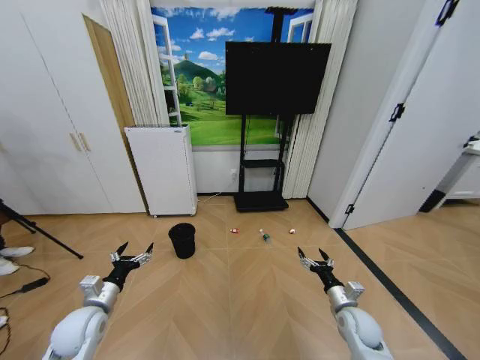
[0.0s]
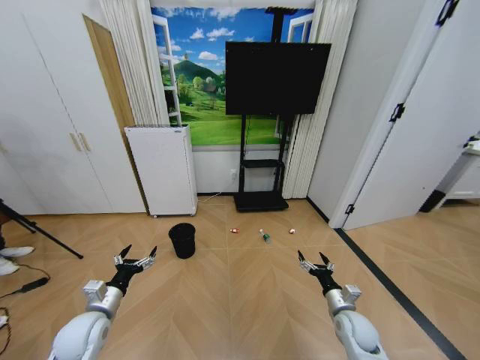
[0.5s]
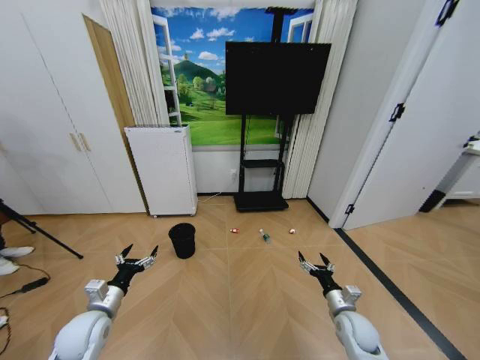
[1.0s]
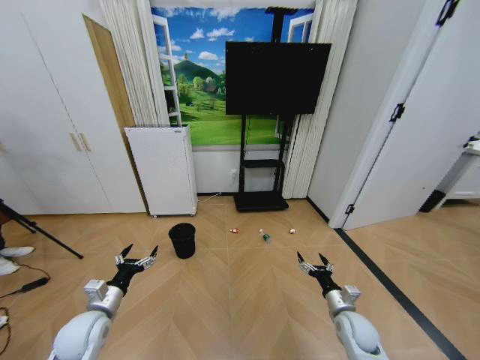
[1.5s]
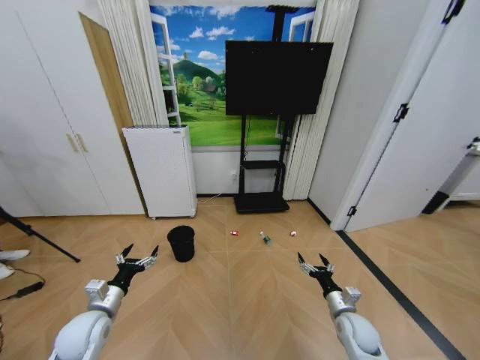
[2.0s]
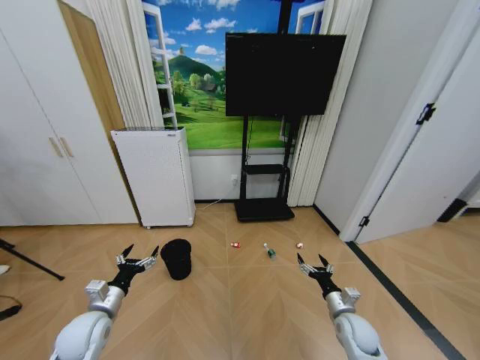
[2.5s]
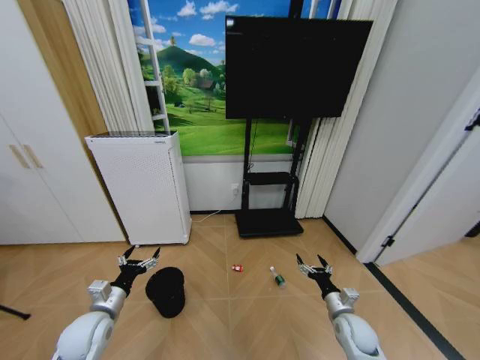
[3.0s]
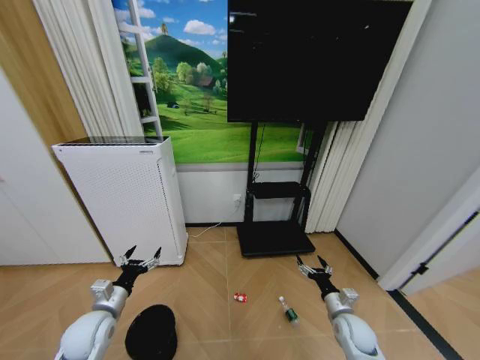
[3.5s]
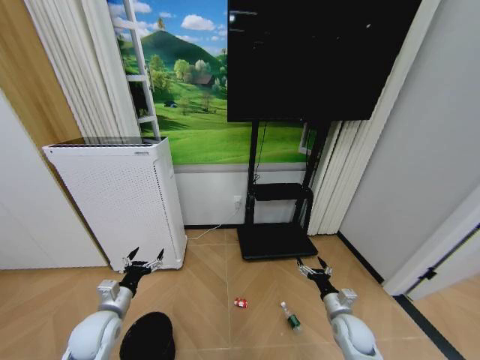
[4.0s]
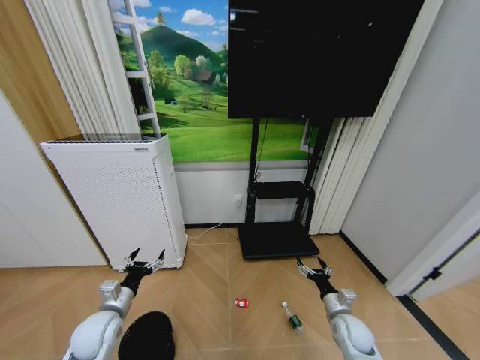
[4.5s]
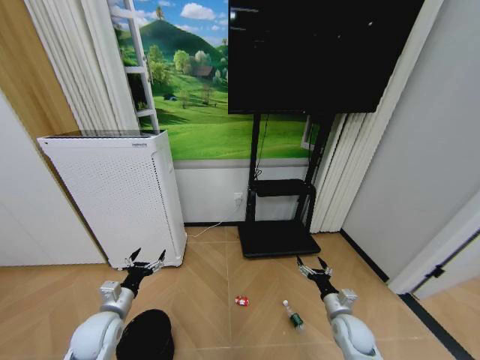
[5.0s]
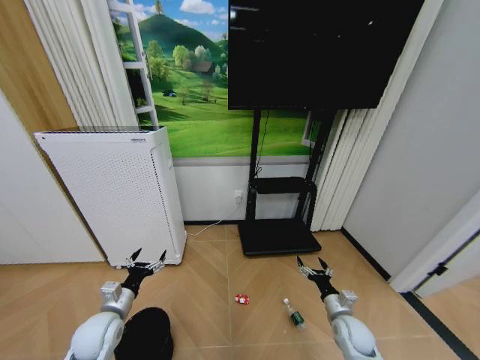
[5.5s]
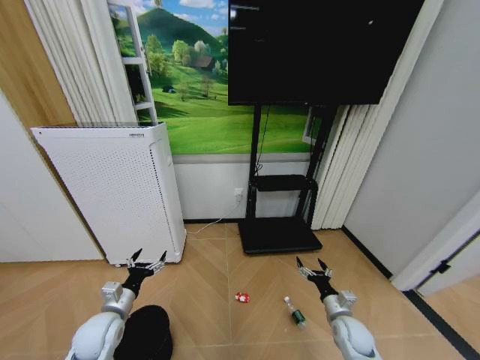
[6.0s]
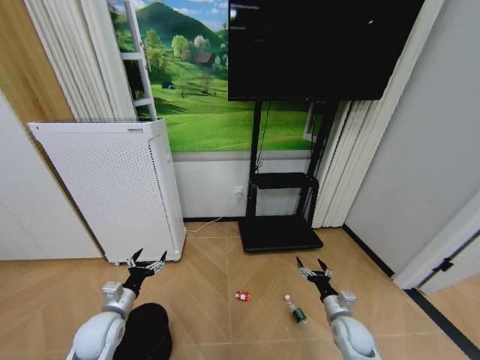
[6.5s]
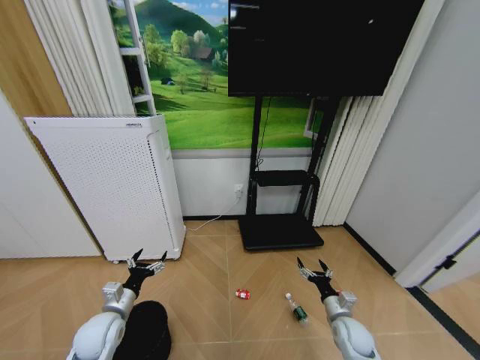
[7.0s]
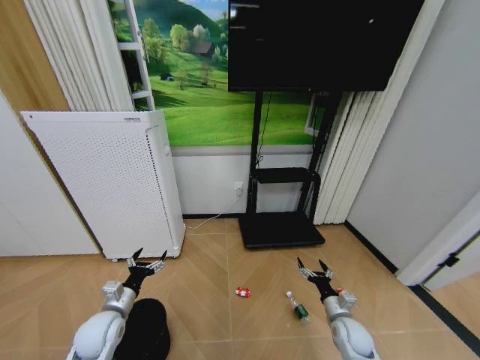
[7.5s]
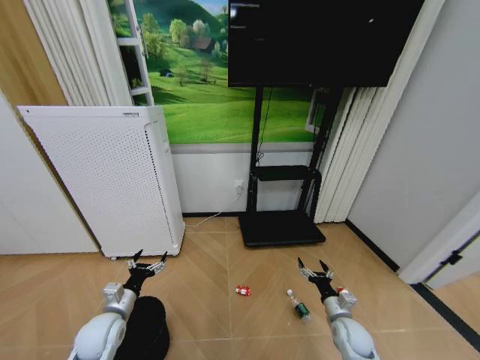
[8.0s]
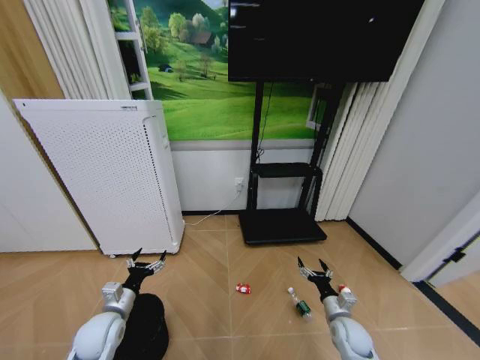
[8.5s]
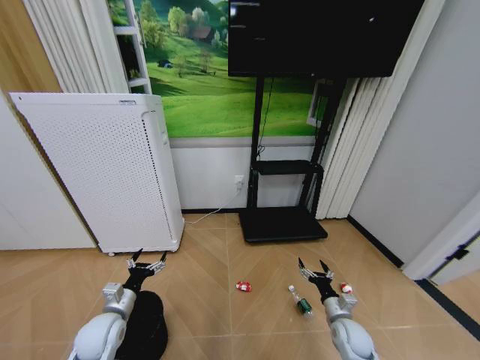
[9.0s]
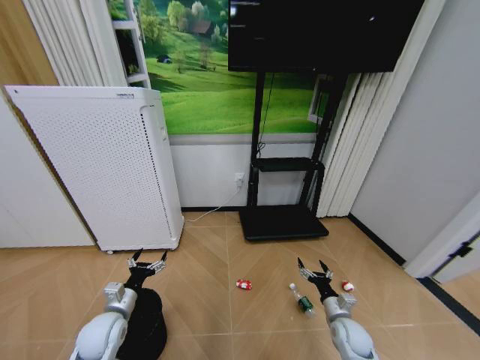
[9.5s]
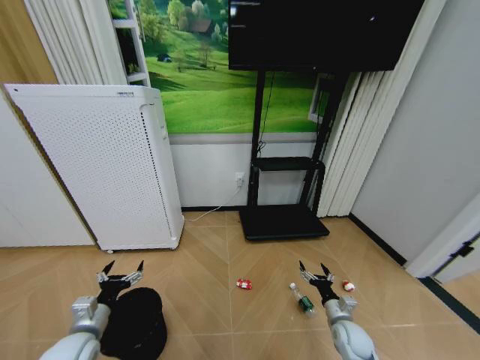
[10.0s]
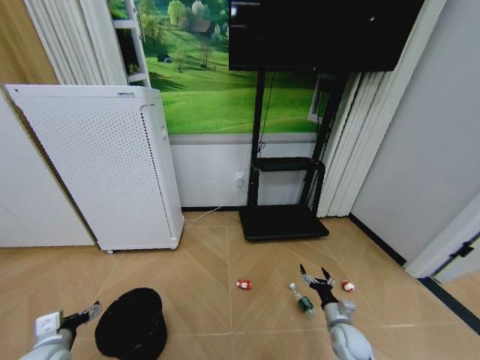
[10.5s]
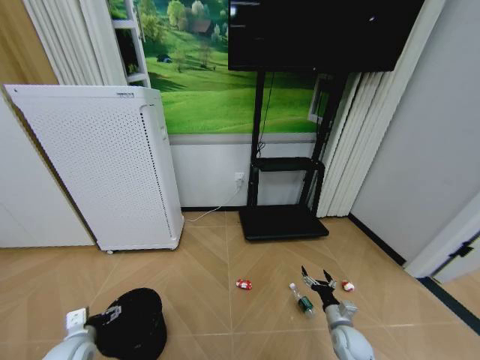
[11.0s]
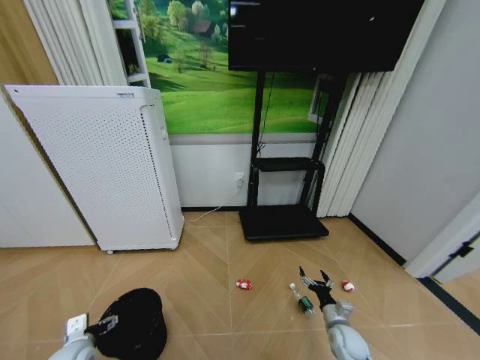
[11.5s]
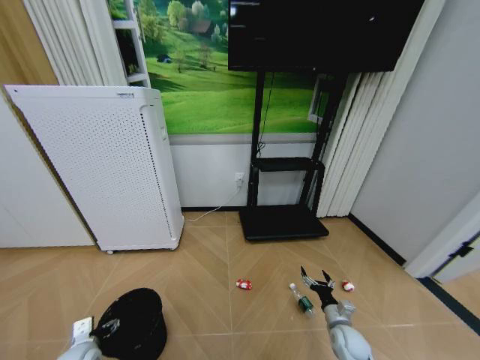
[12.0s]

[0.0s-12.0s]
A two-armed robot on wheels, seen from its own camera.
Task of the whole recording: Pick up the trash bin and place the garbage on the floor into it.
4.0s to 6.0s: Both grippers stay put.
6.0s to 8.0s: Both grippers stay about where they are.
8.0s to 10.0s: The left gripper changes place by about 5 cm.
10.0s to 12.0s: The left gripper goes approximately 10 cm downward.

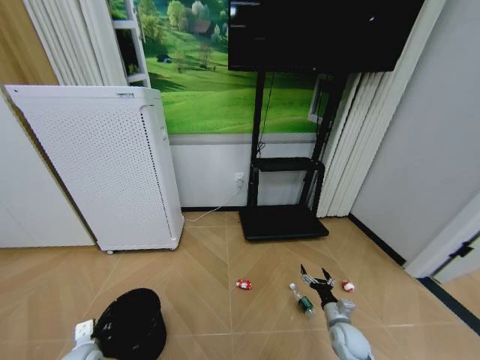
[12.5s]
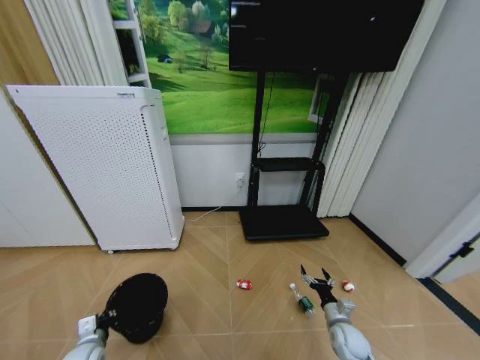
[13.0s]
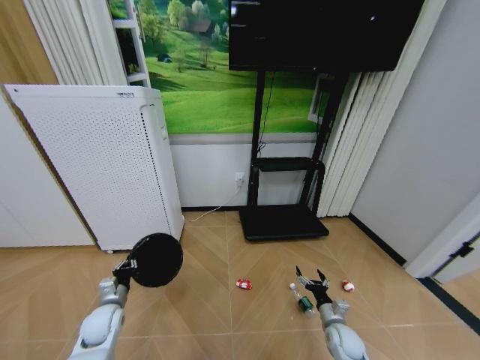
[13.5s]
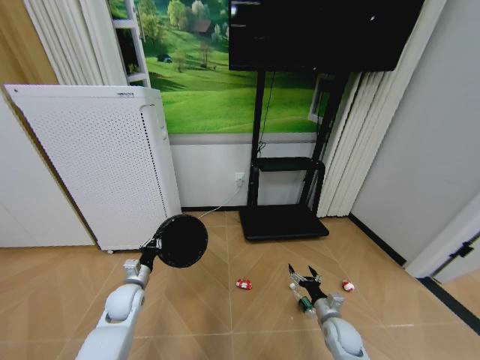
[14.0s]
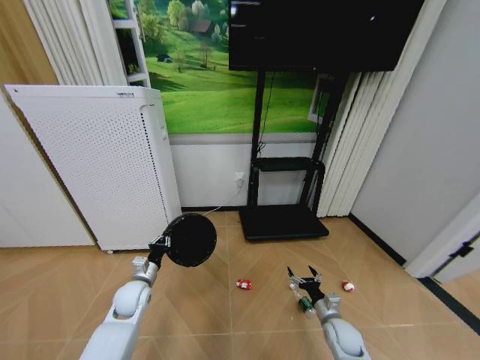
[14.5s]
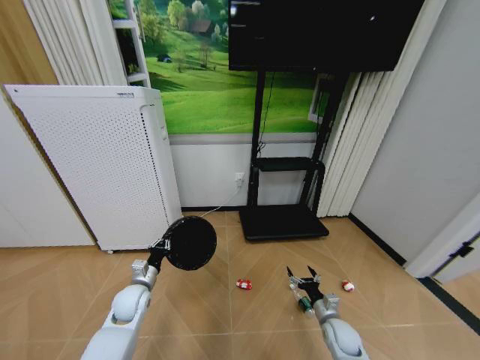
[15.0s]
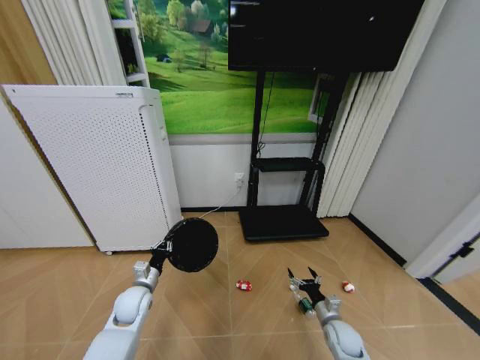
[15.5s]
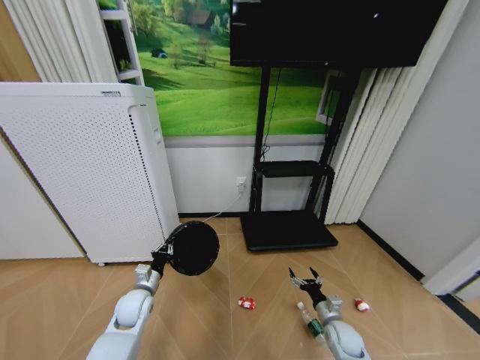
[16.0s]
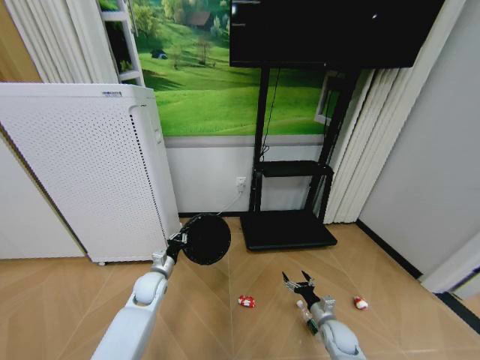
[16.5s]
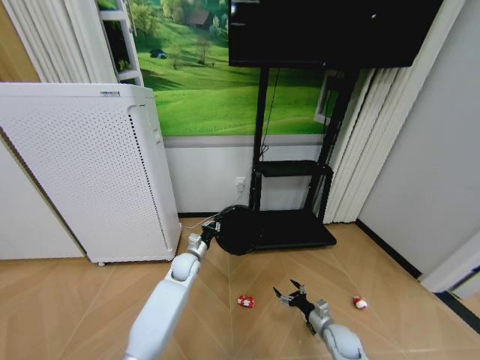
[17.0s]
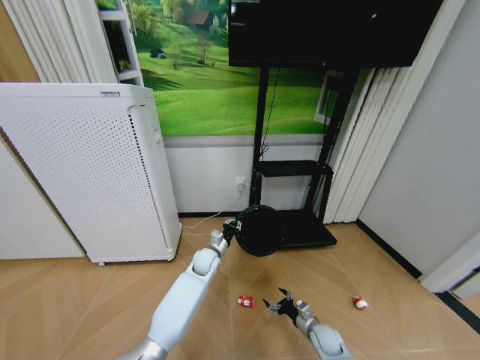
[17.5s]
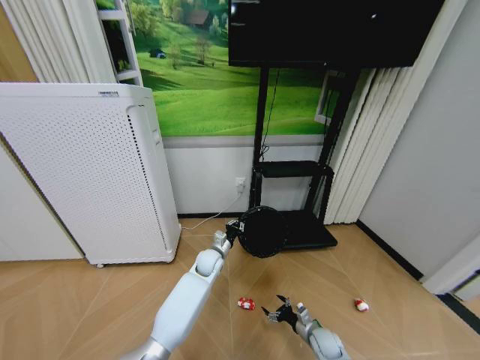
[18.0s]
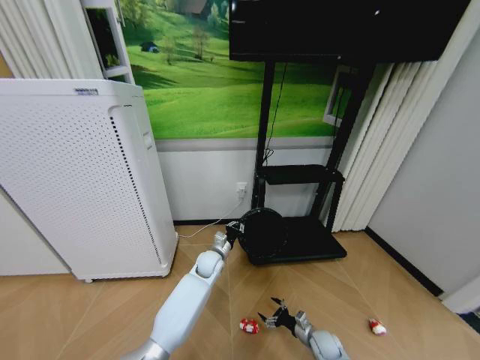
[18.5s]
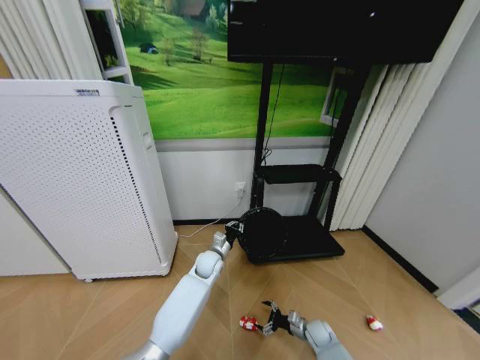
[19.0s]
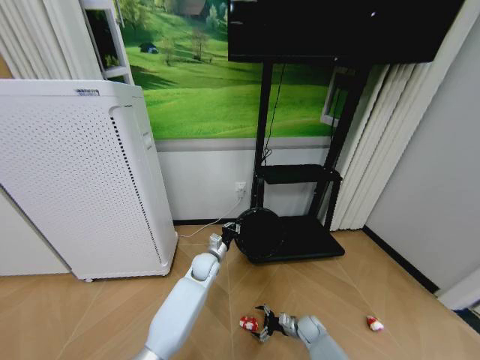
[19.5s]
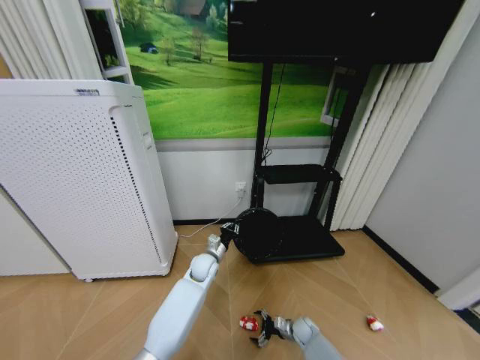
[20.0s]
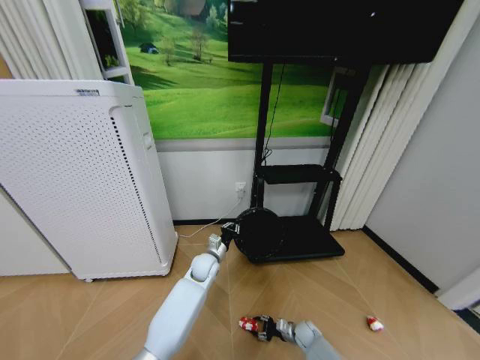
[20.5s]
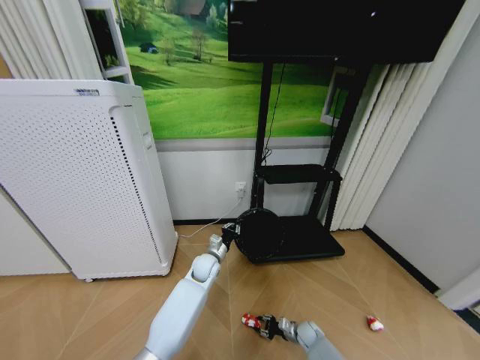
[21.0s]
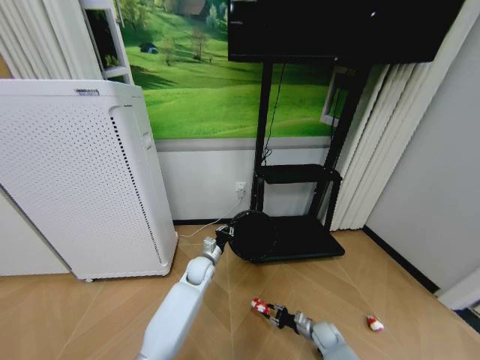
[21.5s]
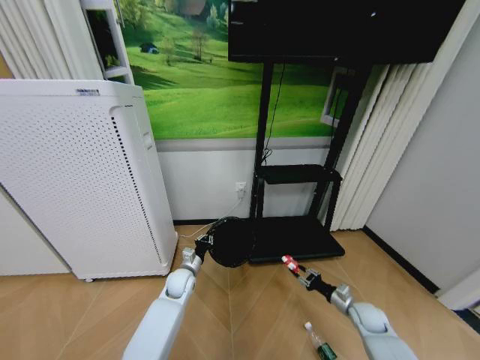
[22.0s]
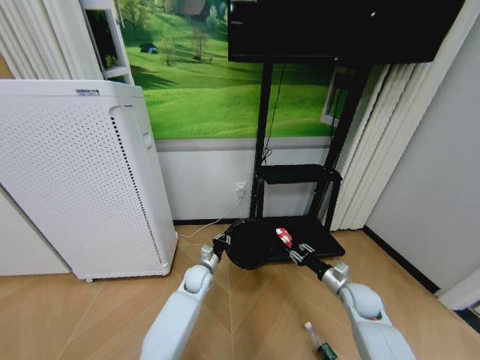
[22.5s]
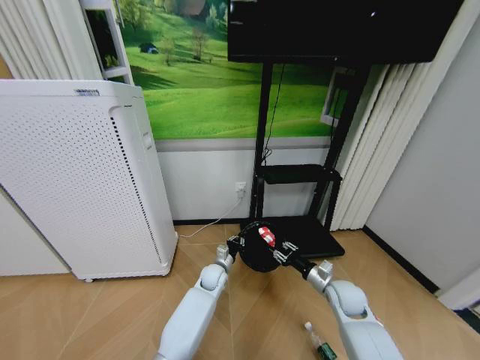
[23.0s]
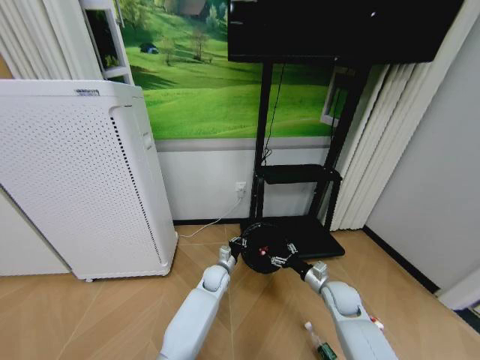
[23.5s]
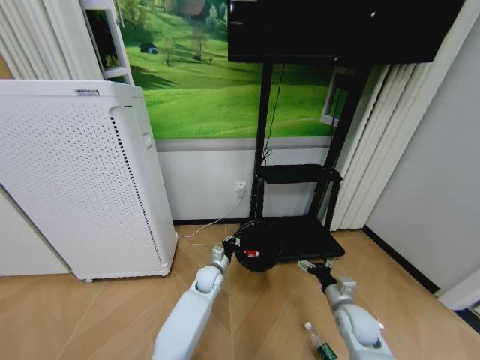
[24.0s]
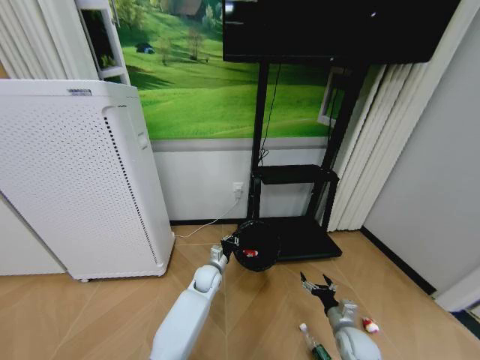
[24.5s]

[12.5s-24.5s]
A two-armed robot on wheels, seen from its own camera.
Task of the whole recording: Pick up the trash bin and place the garbage on the floor into it.
12.5s to 14.5s: The left gripper goes roughly 15 cm forward and to the right.
16.5s to 18.5s: The right gripper moves downward, approximately 5 cm; the left gripper goes some 20 cm to the right and forward.
18.5s to 20.5s: The right gripper travels downward by approximately 5 cm, and closes its fingers.
20.5s to 22.5s: The right gripper goes approximately 25 cm upward.
22.5s to 24.5s: The right gripper goes roughly 10 cm backward and downward, and opens up.

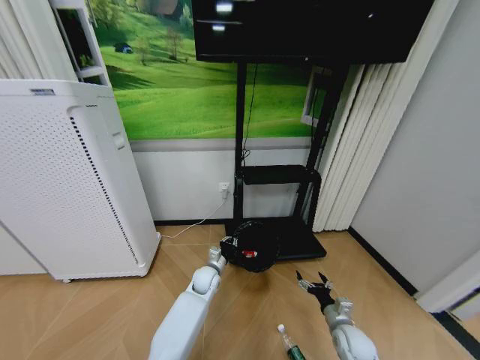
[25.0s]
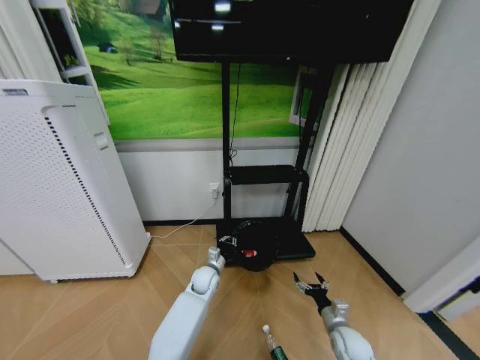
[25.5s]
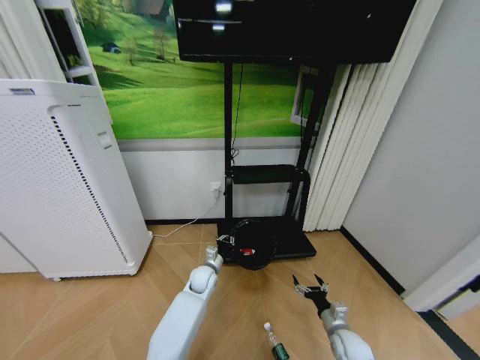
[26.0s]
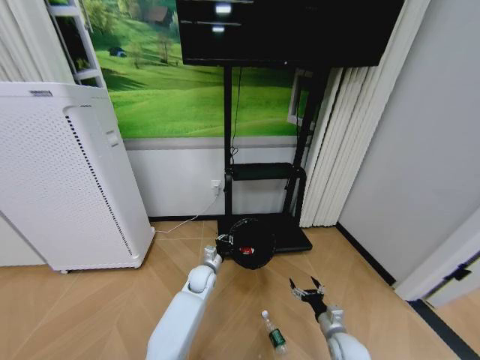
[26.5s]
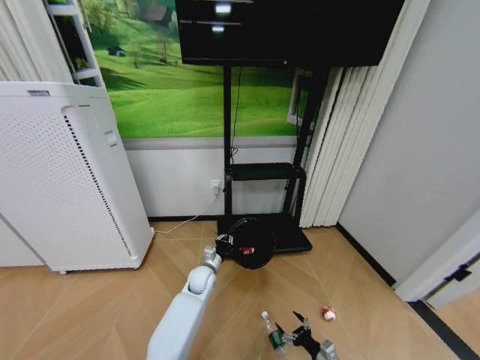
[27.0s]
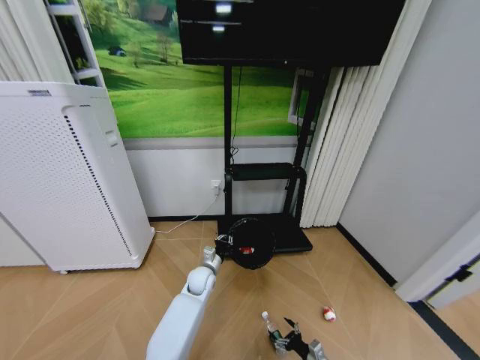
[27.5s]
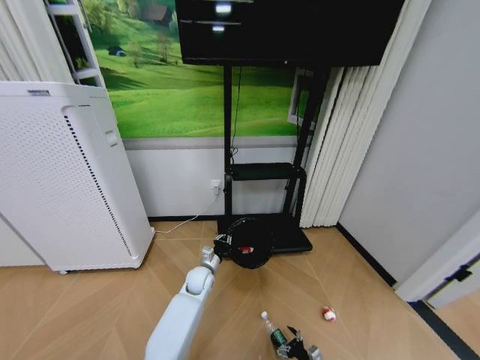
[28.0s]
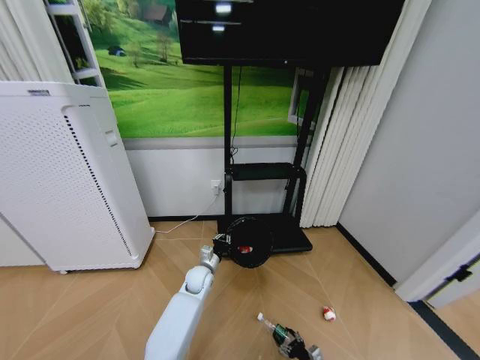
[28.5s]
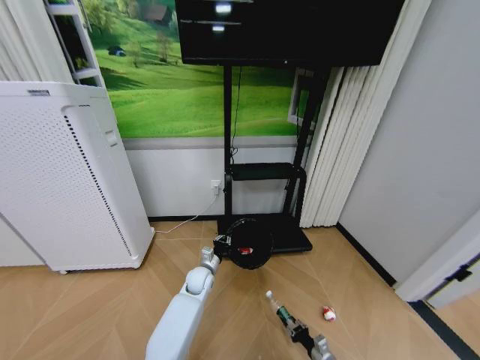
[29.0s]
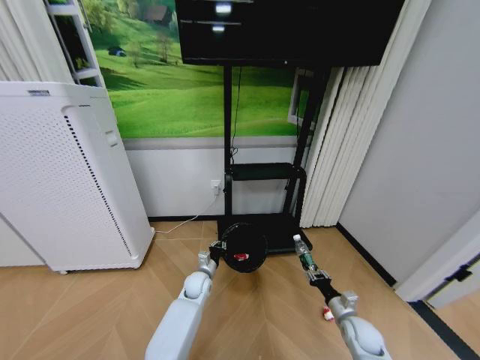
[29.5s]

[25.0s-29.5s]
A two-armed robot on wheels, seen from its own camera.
Task of the whole recording: Pick up the trash bin and place the garbage on the floor into it.
25.0s to 27.0s: The right gripper heads downward and backward, covering roughly 15 cm.
27.0s to 29.5s: The right gripper moves forward and upward, about 15 cm, and closes its fingers.
